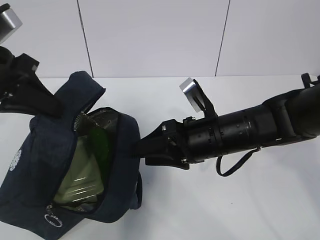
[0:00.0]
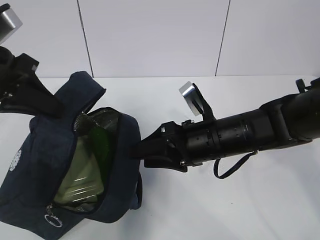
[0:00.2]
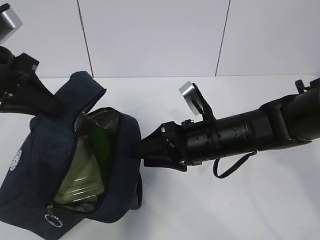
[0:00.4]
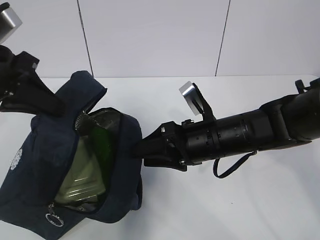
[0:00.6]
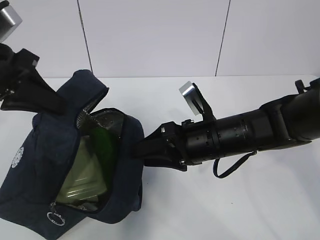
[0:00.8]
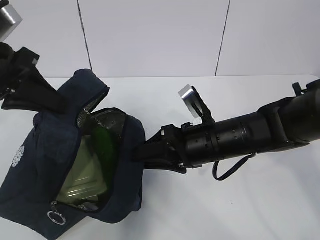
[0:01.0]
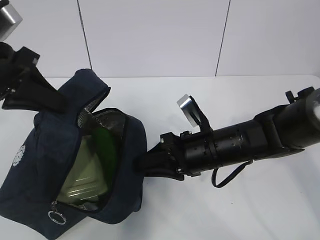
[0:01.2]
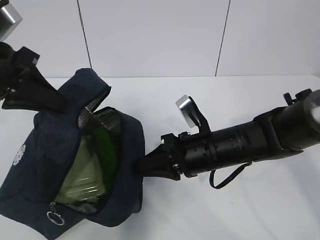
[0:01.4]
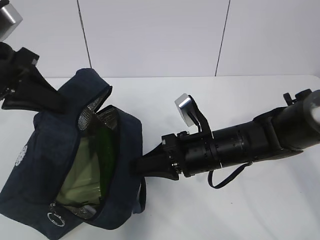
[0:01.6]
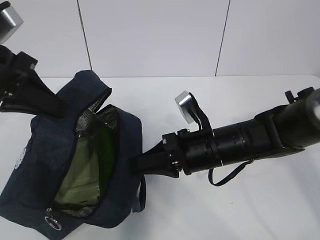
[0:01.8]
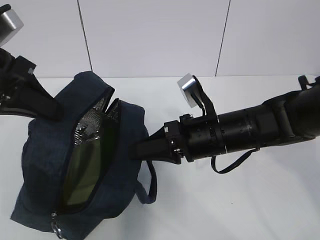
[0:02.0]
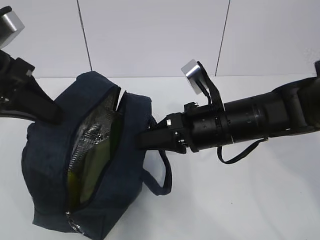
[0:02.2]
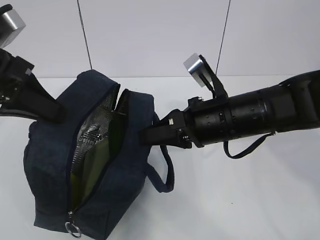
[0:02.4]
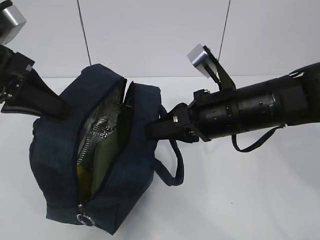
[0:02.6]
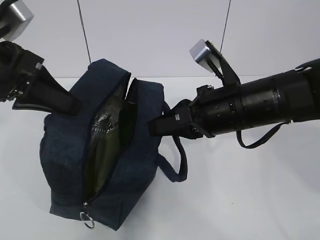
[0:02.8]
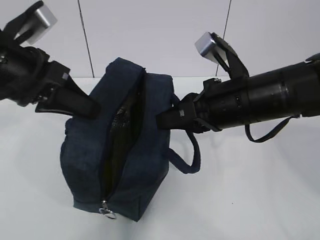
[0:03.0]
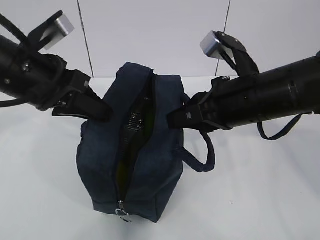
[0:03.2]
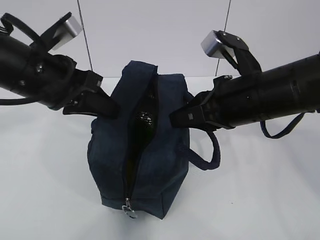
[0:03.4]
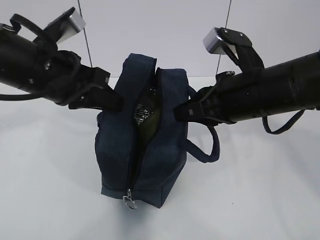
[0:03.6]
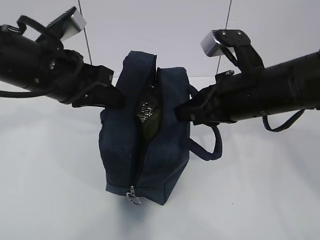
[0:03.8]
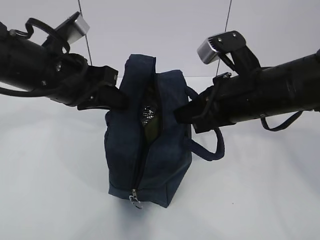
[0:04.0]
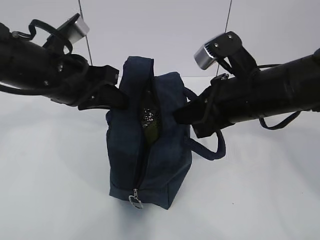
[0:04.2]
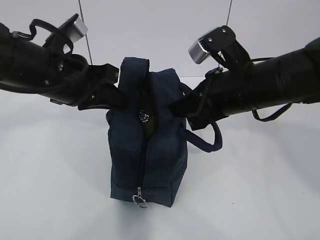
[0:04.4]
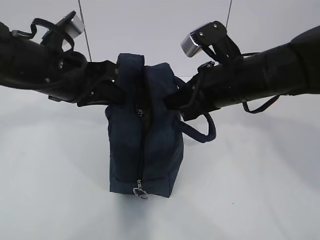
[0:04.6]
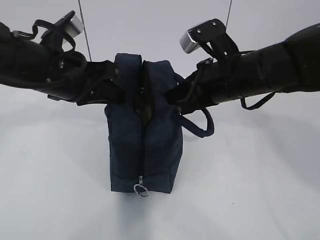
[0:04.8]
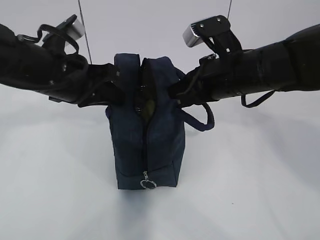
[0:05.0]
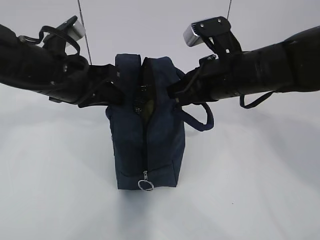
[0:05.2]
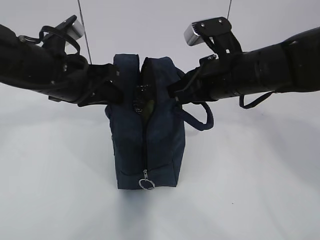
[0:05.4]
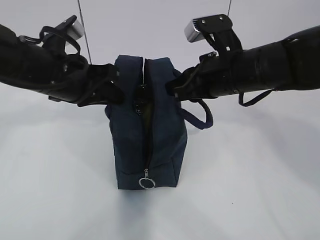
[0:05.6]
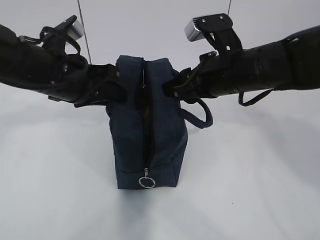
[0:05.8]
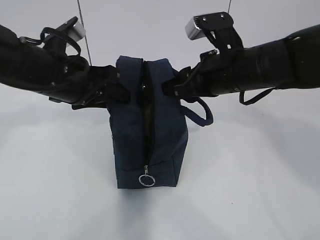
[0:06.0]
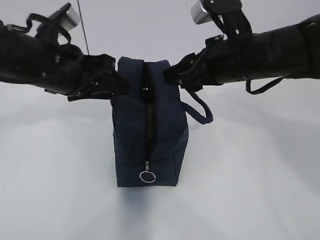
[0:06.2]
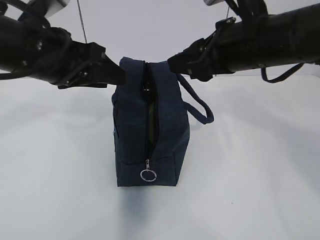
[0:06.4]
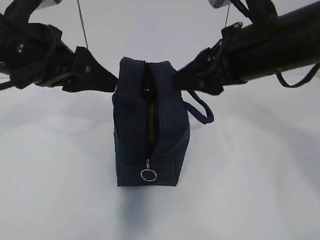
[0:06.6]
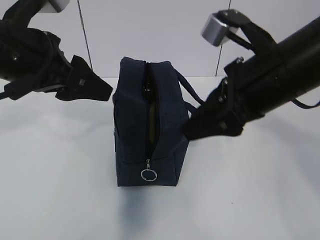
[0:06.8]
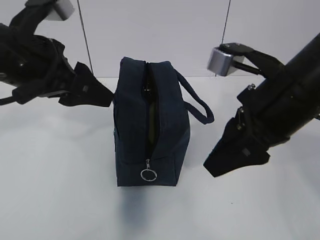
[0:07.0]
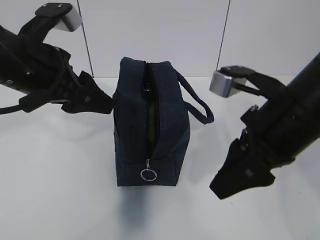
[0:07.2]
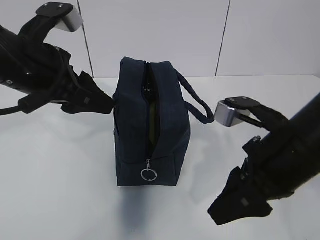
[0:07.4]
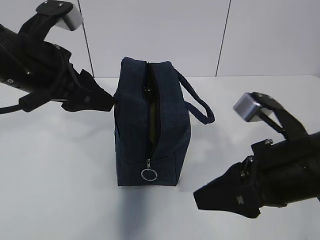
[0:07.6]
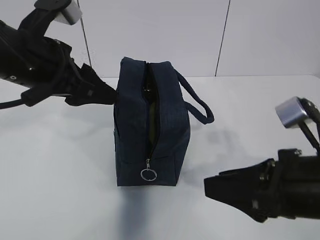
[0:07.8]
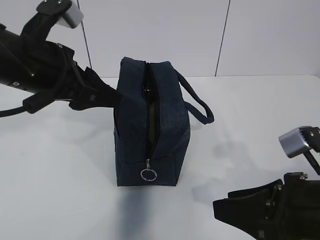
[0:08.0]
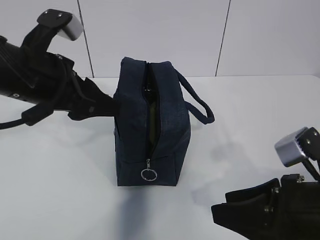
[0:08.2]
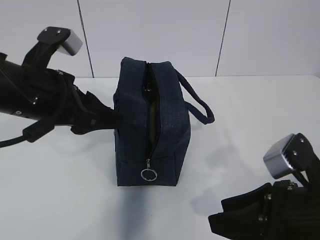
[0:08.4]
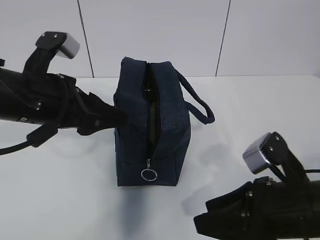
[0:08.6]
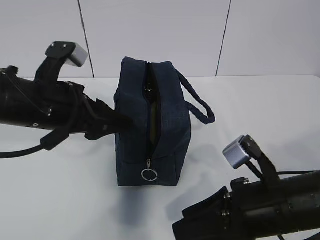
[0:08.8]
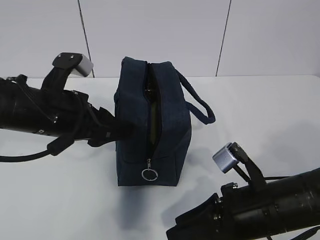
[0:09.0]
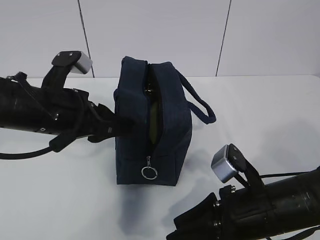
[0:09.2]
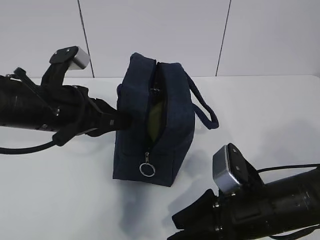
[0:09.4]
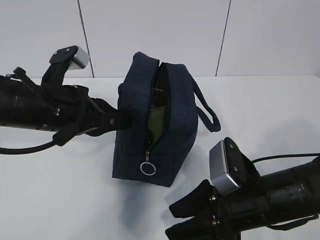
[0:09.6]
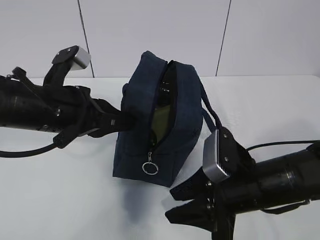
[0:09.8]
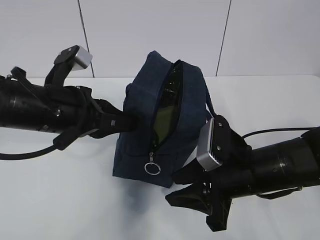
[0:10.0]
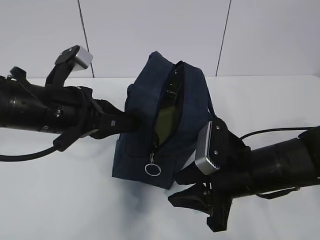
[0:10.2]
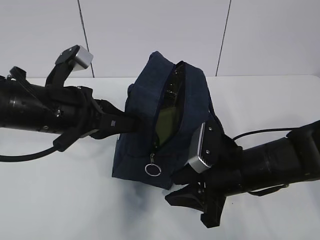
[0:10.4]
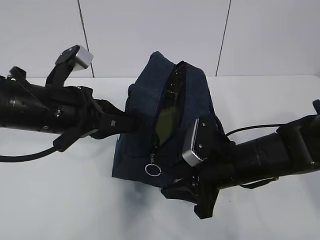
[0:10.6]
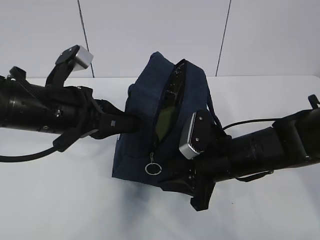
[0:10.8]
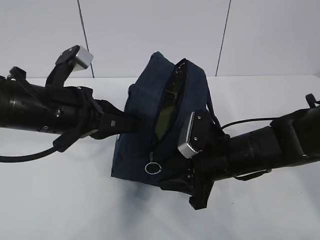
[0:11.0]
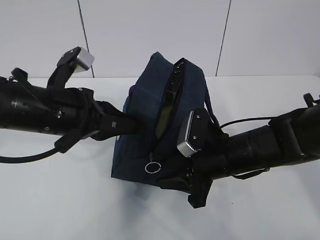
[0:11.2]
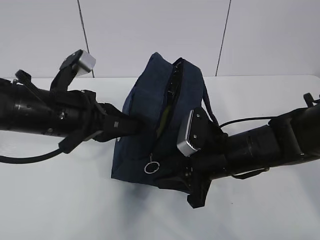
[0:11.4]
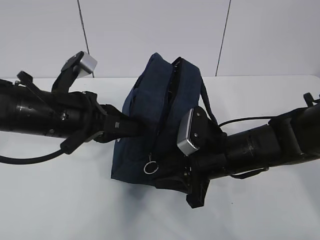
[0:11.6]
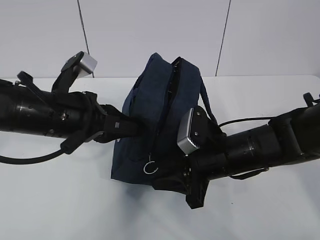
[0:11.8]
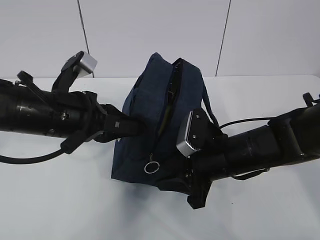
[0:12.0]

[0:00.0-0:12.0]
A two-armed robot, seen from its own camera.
0:00.0 to 0:01.6: The right gripper closes.
0:01.6 to 0:03.0: The right gripper moves upward, about 10 cm.
0:03.0 to 0:04.4: The left gripper changes place by about 5 cm.
0:04.4 to 0:06.0: The left gripper opens. The right gripper opens its fingers.
0:06.0 to 0:07.6: The right gripper travels backward by about 15 cm. Meanwhile the left gripper moves approximately 5 cm.
0:07.6 to 0:09.0: The grippers both shift downward by about 10 cm.
0:09.0 to 0:10.4: The left gripper closes its fingers; the right gripper heads forward, covering roughly 5 cm.
0:10.4 to 0:12.0: The grippers stay close to where they were, moving slightly.

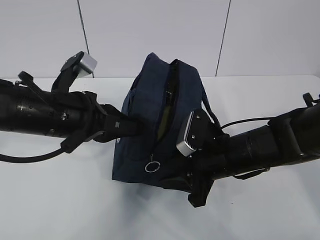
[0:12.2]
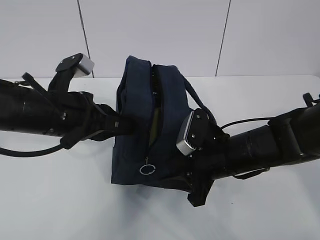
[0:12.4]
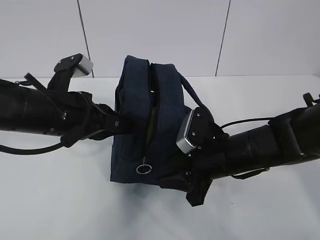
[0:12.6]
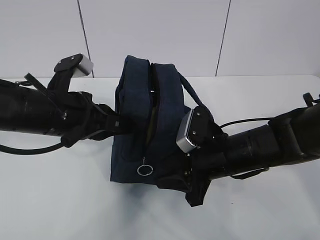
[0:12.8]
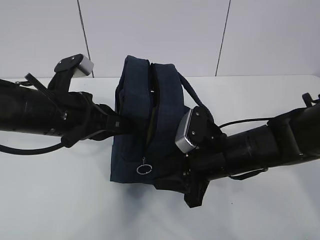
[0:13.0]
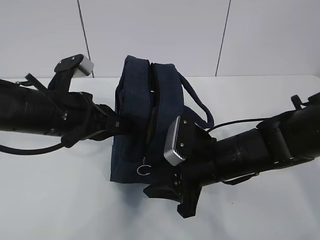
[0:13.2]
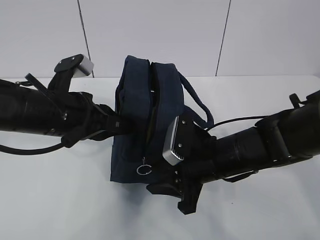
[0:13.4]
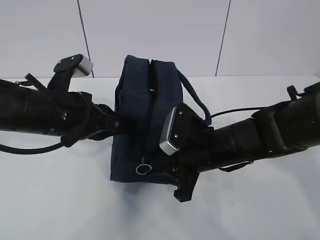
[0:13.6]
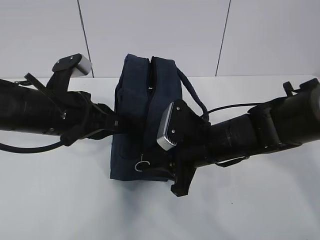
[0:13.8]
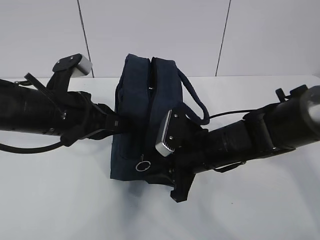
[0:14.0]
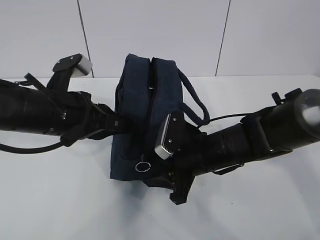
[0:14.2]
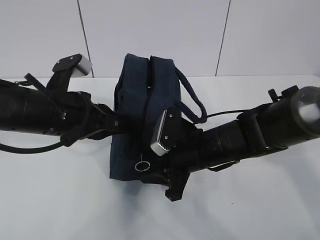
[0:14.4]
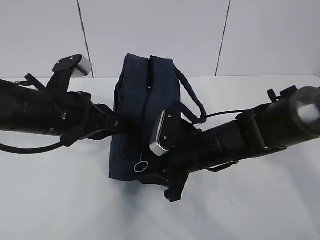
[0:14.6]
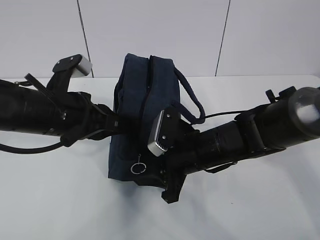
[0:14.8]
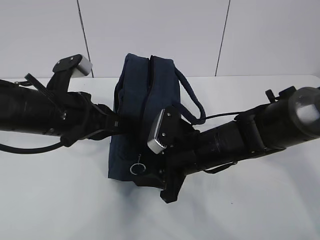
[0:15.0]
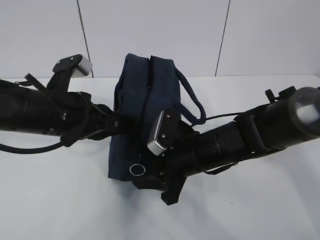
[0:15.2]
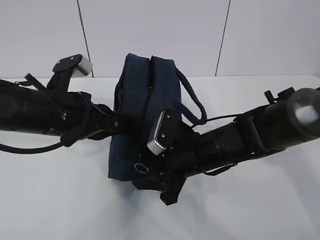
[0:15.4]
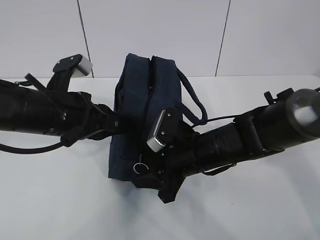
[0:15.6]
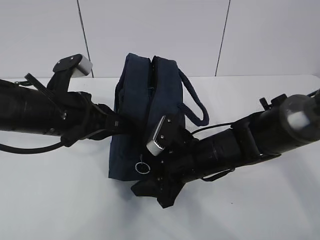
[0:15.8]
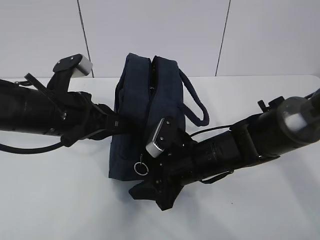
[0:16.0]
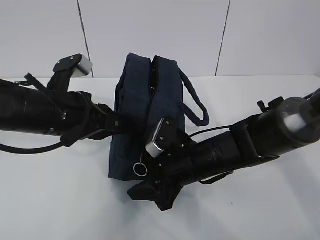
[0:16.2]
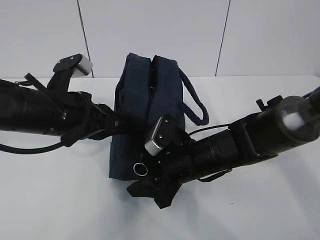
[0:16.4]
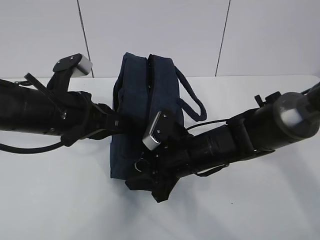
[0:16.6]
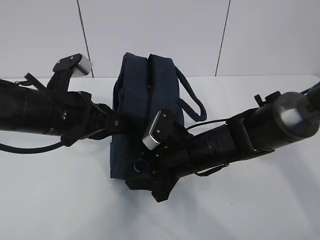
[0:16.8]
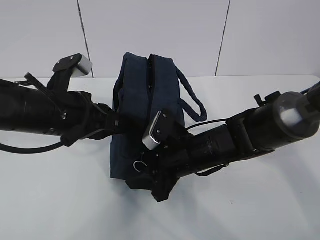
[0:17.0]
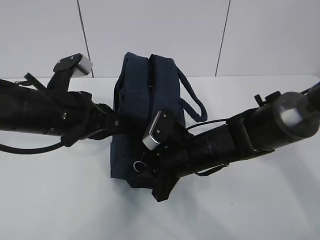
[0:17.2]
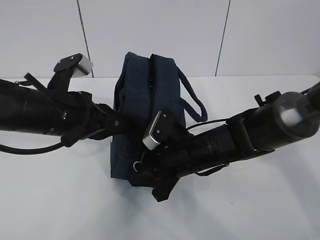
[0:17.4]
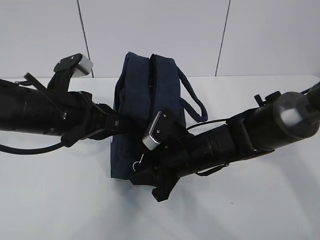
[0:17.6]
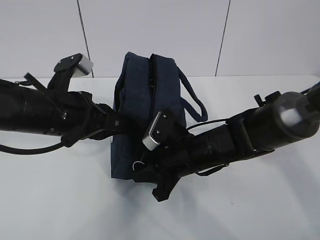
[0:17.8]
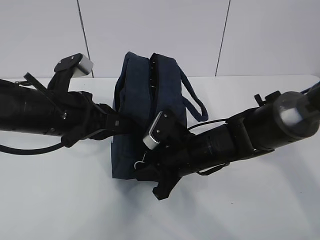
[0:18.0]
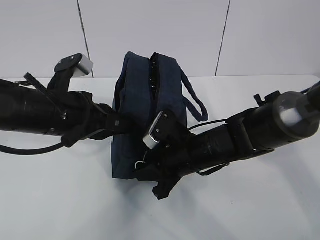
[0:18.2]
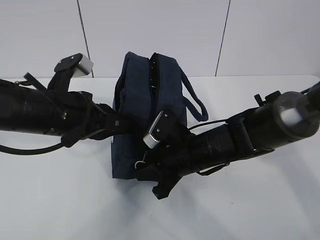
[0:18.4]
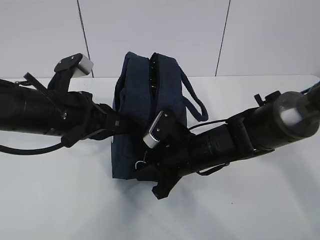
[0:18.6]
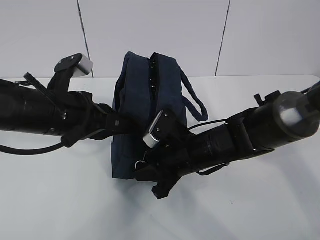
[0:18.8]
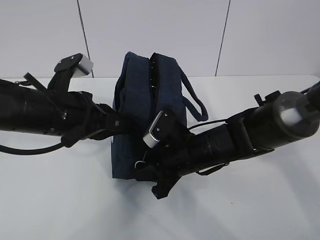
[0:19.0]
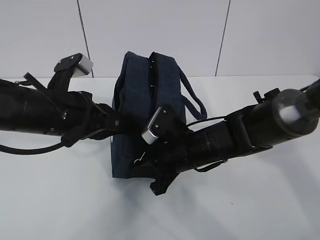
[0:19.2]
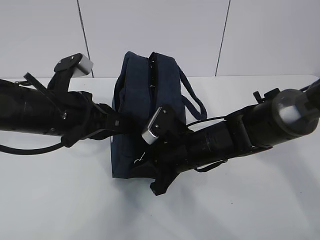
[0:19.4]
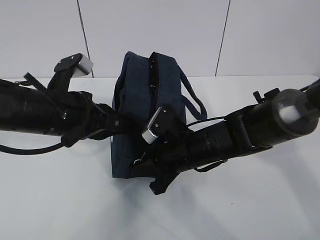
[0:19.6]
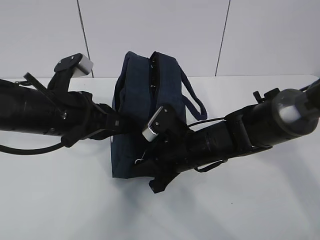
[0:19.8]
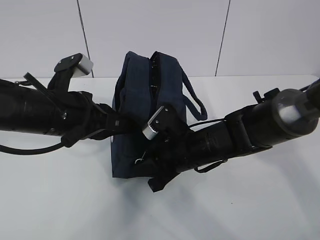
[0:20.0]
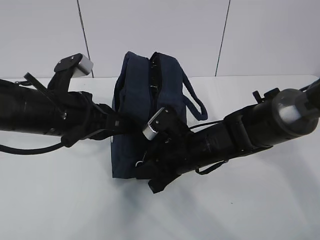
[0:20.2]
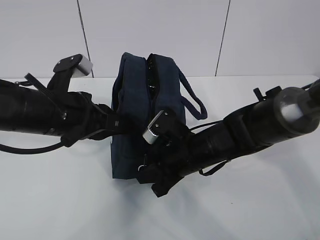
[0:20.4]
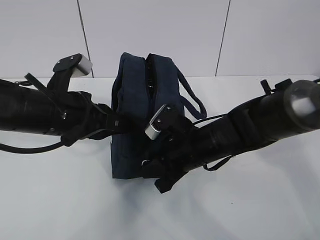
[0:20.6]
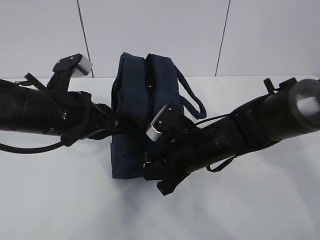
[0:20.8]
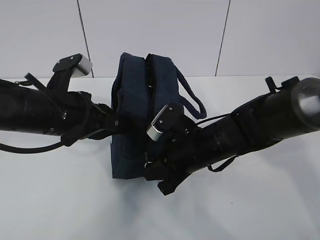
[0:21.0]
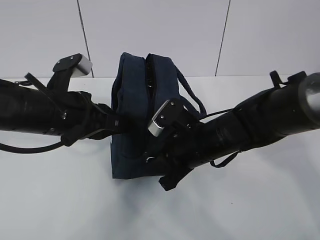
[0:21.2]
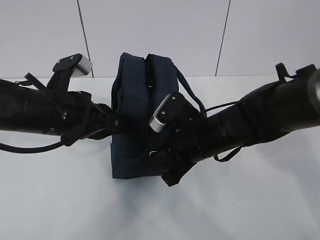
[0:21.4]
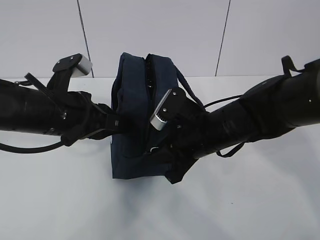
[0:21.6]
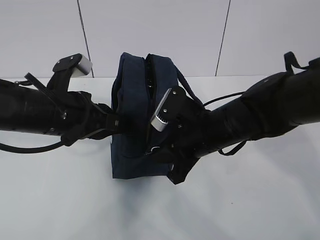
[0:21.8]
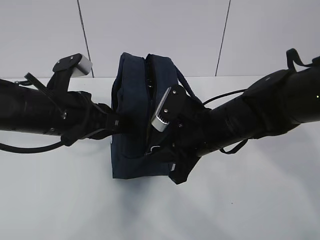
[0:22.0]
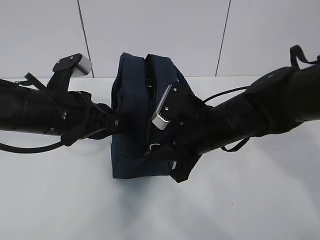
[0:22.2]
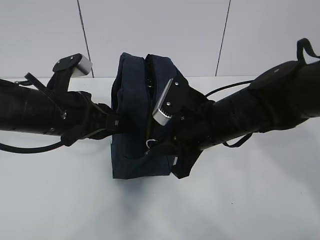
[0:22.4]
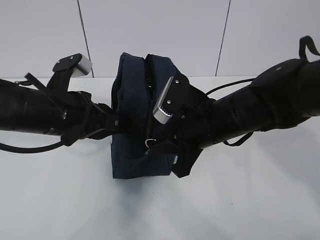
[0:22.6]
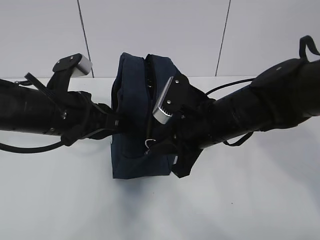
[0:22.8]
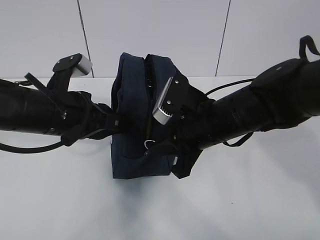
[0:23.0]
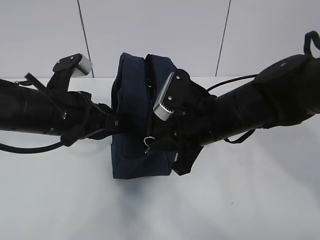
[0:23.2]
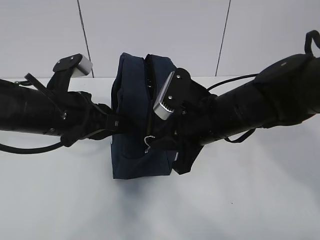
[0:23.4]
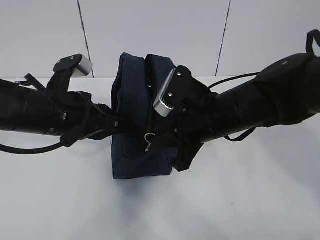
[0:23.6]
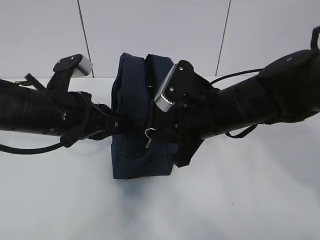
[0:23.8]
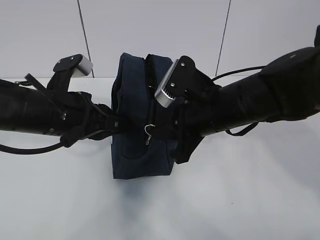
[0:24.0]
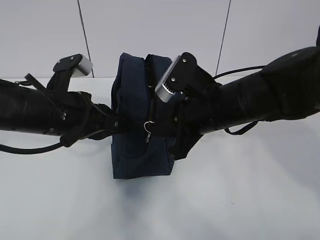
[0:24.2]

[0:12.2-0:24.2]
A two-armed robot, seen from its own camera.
0:12.2 to 0:16.6: There are only small adjustments of the grippers.
0:16.6 to 0:18.2: The right gripper closes up.
0:18.2 to 0:19.8: Neither gripper changes place.
0:19.8 to 0:21.2: The grippers stay close to where they were, moving slightly.
0:21.2 to 0:22.6: The right gripper travels upward by about 5 cm.
0:22.6 to 0:24.2: There are only small adjustments of the grippers.
